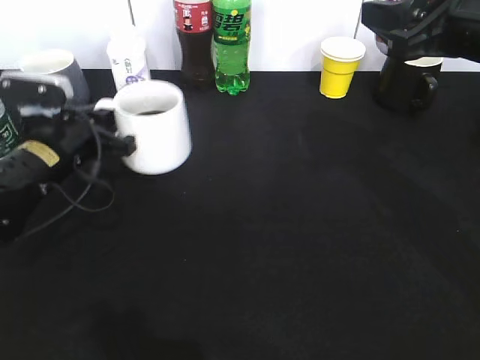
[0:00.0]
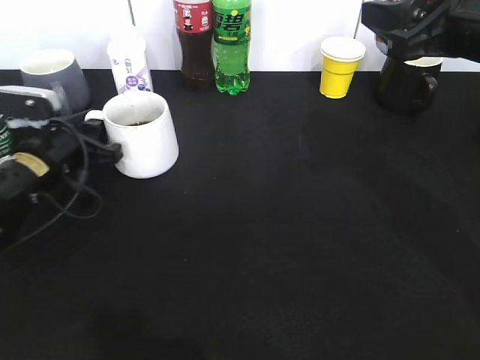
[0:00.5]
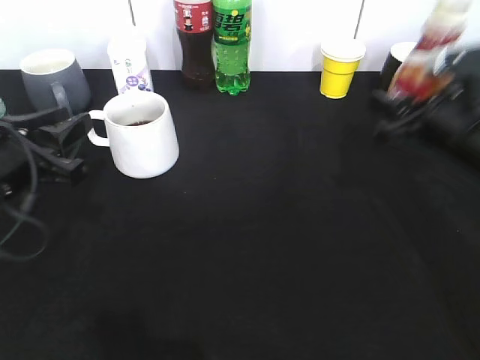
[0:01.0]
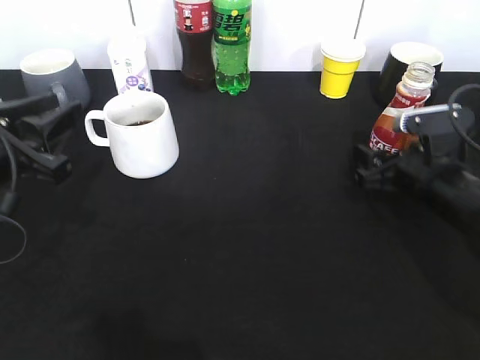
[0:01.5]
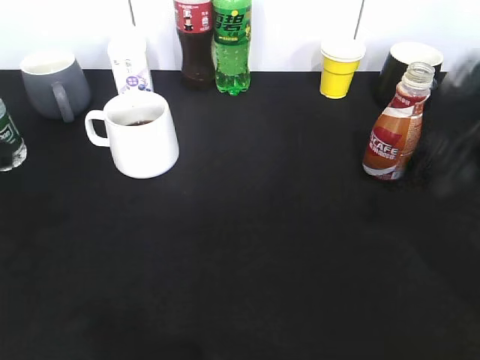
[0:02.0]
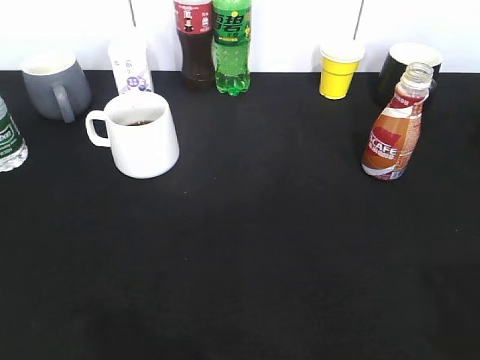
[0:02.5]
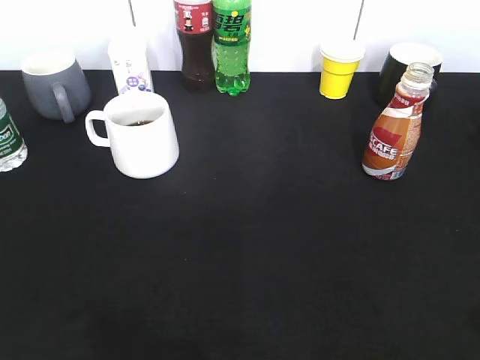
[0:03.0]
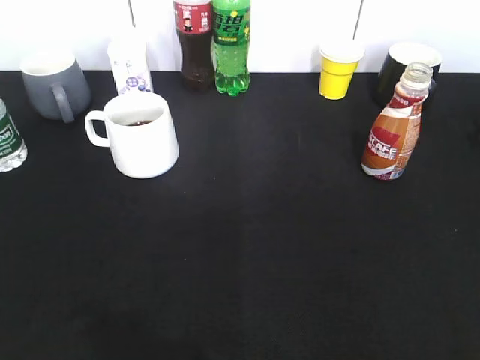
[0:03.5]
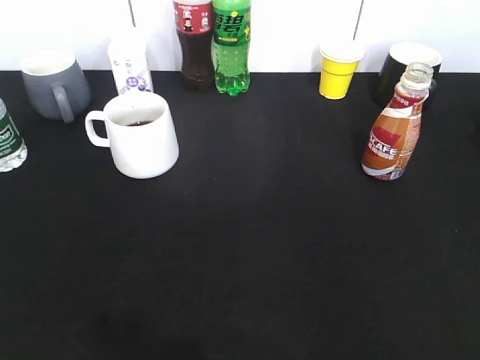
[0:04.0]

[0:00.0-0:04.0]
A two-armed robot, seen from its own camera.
Step, 0:01.0 to 0:01.5: Place the coffee bottle on the table with right gripper.
0:00.0 to 0:02.0: The left gripper goes approximately 20 cm backward, upward and to the left, and opens, while the right gripper moves some 20 cm downward and comes back, and opens its fingers.
0:02.0 to 0:04.0: The grippers both shift backward by roughly 25 cm.
